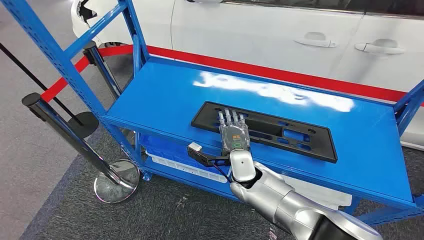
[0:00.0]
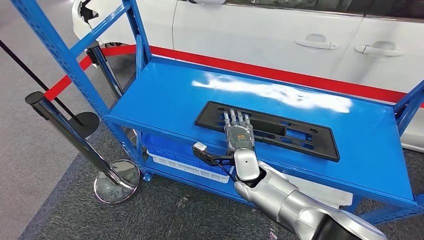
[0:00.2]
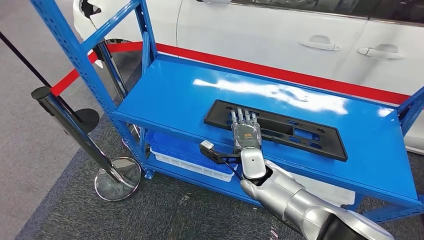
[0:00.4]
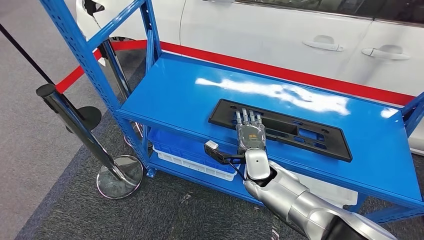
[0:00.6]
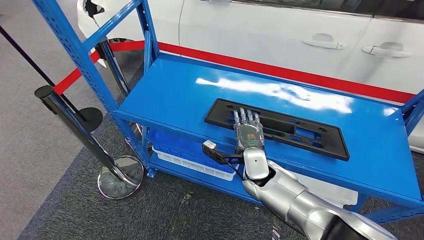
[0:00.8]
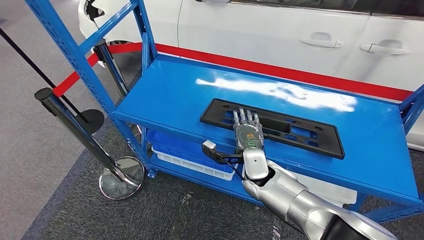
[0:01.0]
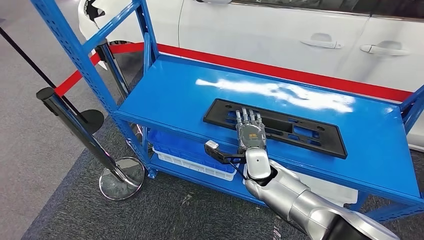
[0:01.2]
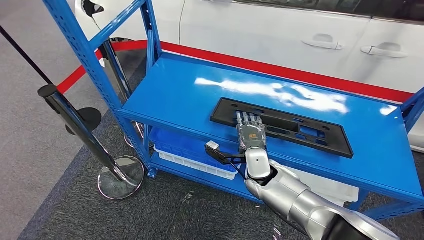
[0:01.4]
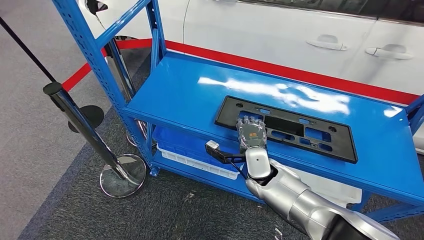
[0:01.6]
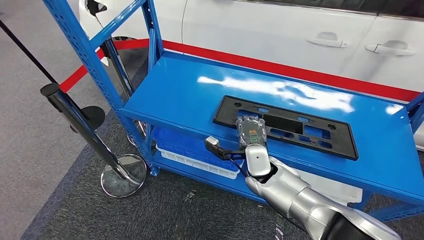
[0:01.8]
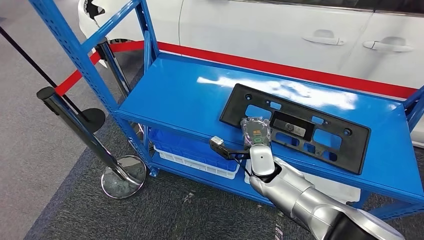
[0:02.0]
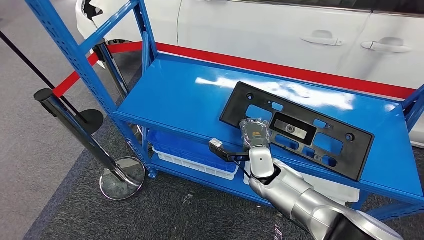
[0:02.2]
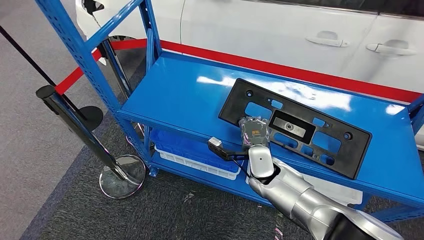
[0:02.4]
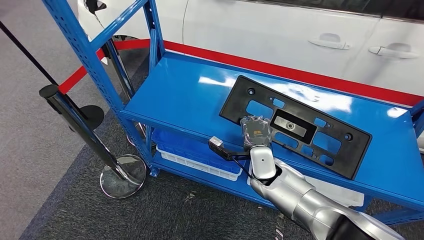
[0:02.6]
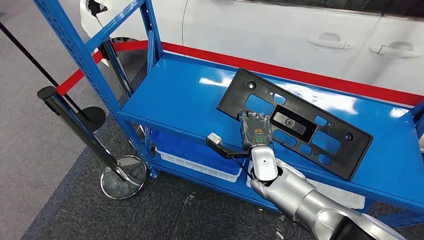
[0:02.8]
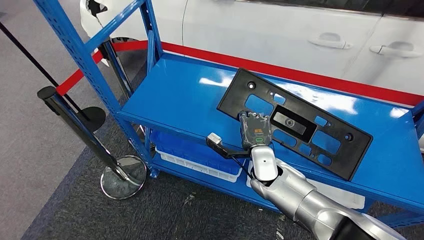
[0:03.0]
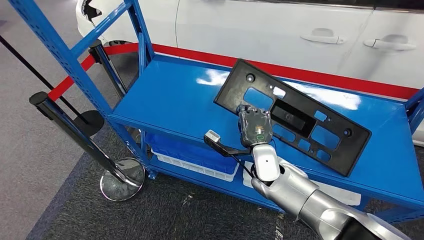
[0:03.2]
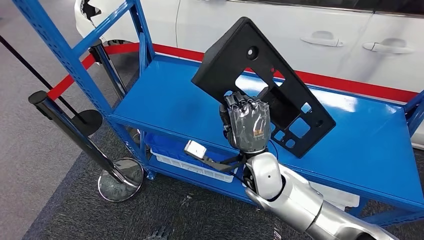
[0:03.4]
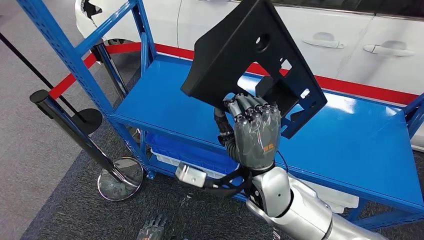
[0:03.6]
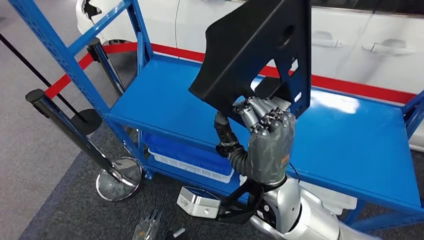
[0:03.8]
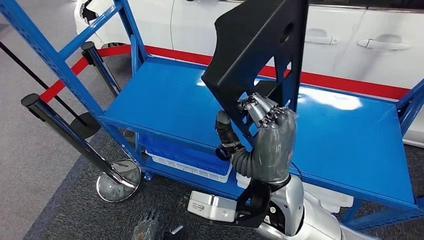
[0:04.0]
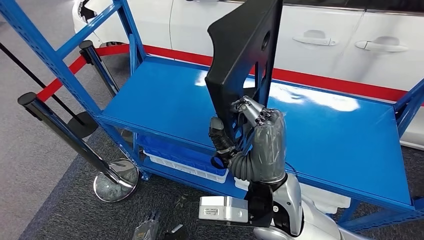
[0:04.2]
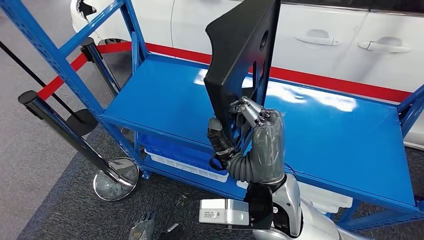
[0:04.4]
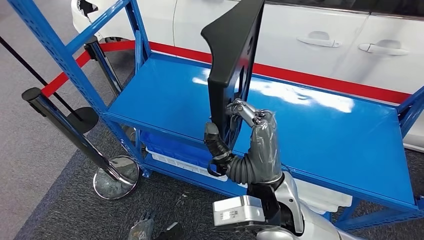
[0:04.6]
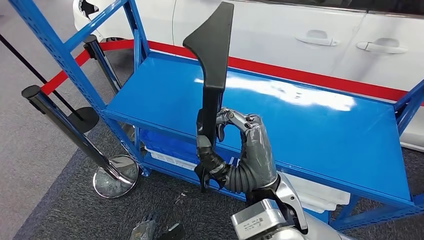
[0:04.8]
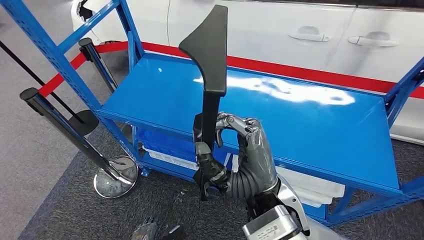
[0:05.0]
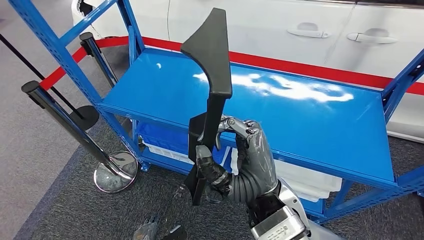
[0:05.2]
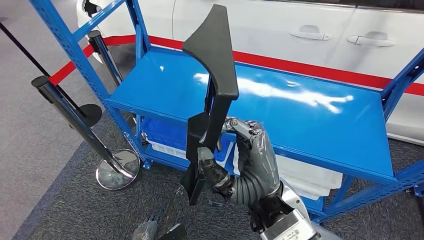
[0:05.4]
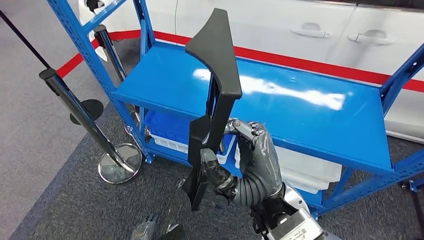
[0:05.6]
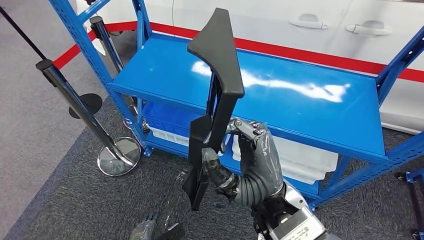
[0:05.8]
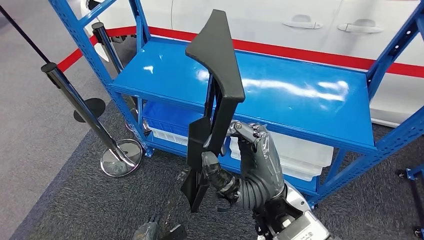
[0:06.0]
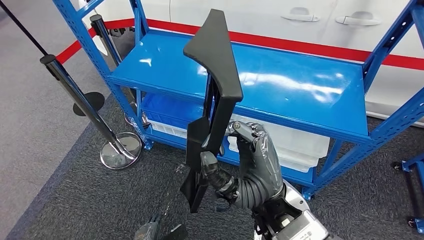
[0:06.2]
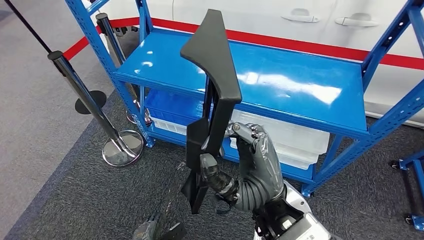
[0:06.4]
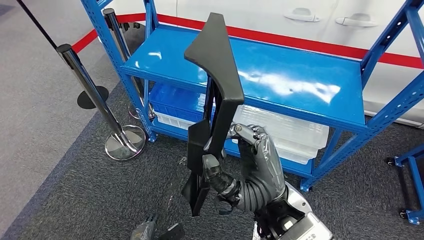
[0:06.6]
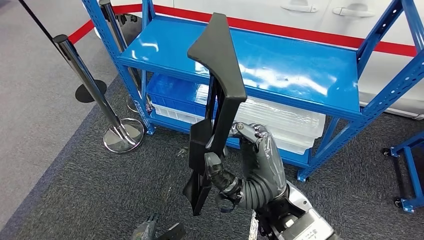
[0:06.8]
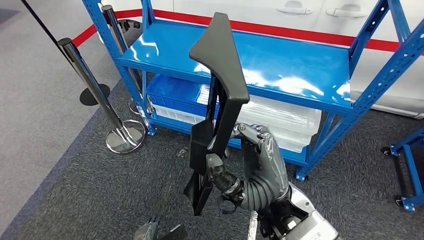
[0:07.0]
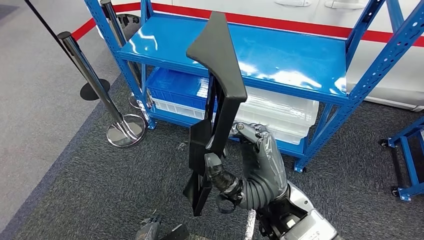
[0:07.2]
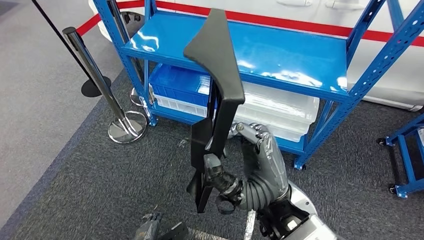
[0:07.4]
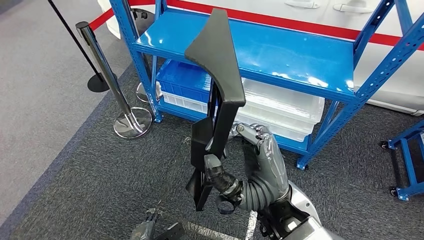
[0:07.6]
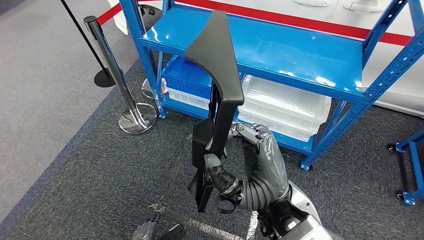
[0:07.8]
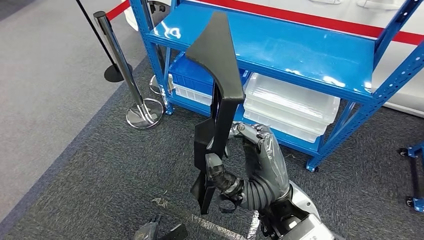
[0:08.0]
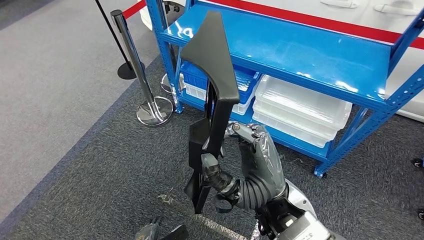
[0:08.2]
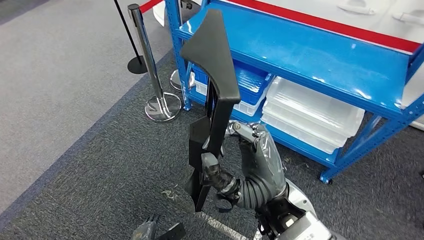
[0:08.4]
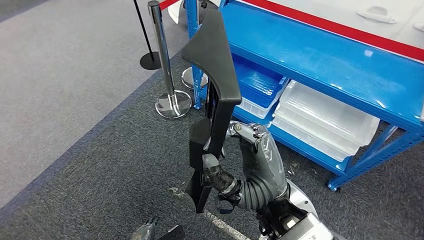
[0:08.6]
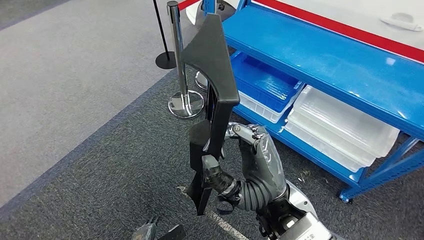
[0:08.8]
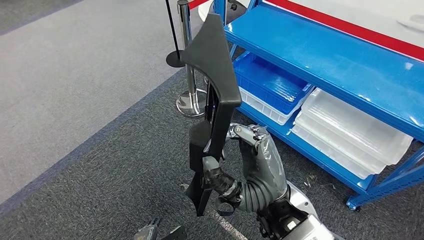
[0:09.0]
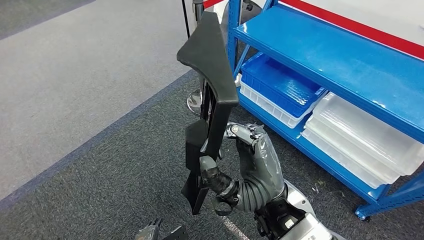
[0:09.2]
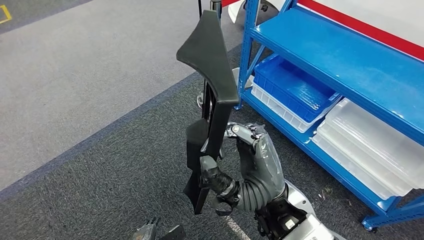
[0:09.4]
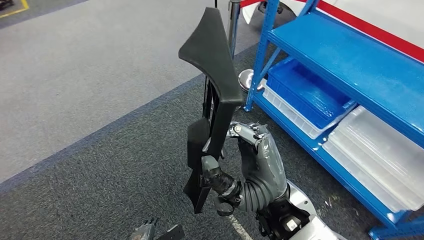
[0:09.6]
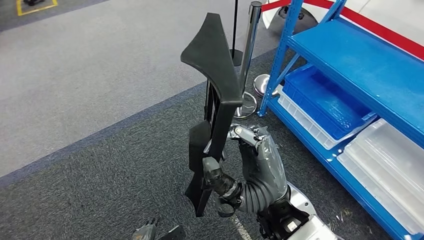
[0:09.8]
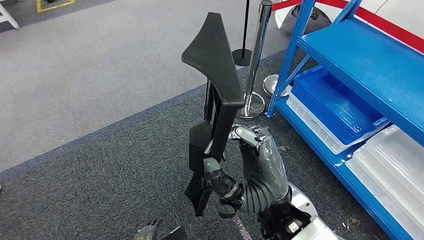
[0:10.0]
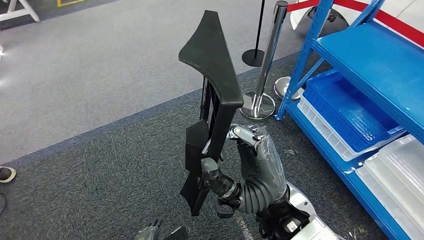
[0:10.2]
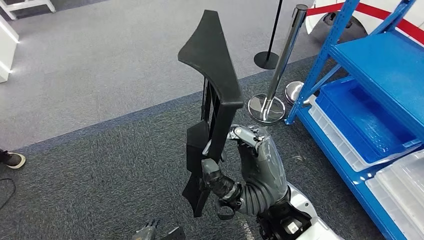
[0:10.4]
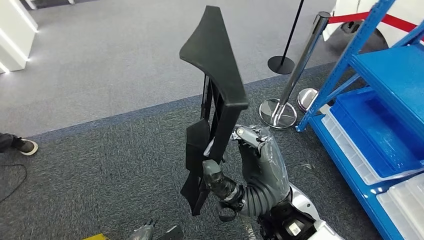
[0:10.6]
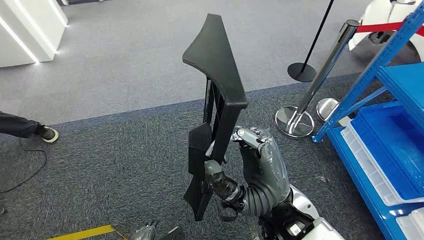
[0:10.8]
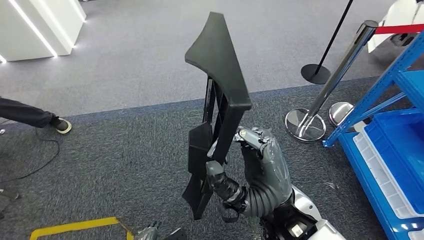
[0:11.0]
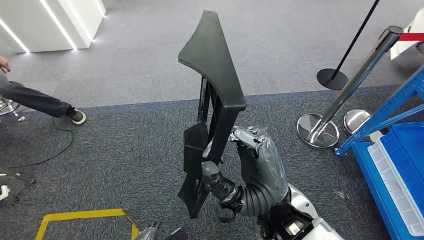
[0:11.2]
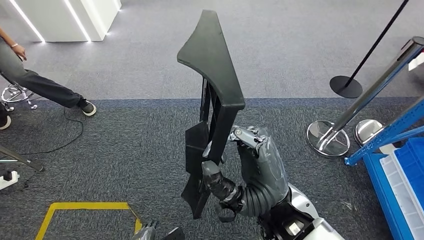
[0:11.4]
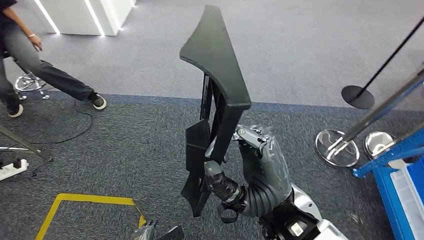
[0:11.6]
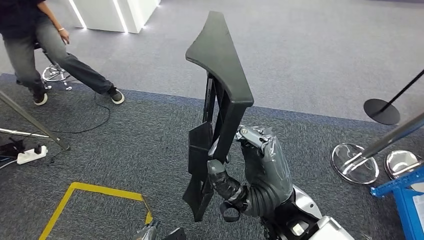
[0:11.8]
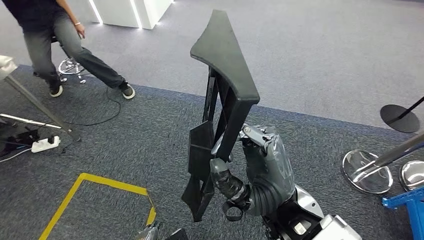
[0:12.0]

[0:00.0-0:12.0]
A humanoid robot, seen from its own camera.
Step, 0:00.0 to 0:06.8: Pick up the large material from the shelf.

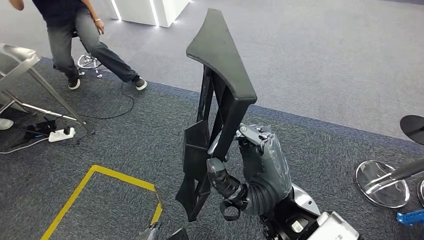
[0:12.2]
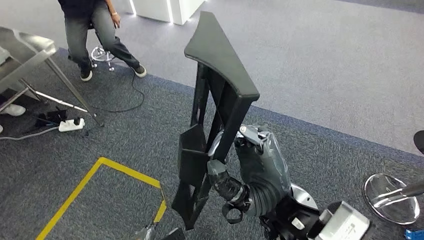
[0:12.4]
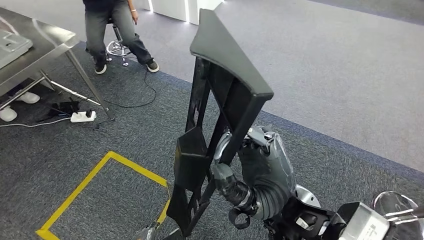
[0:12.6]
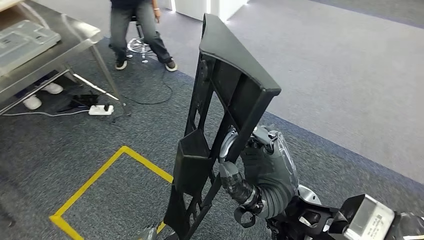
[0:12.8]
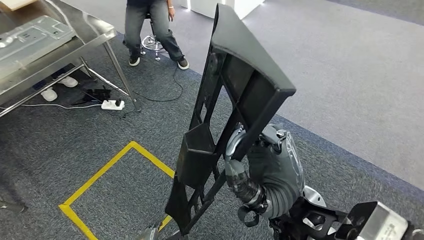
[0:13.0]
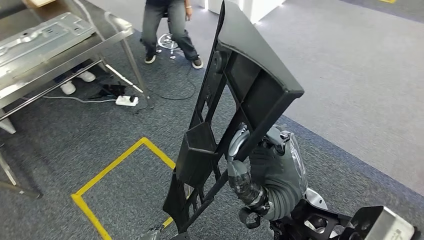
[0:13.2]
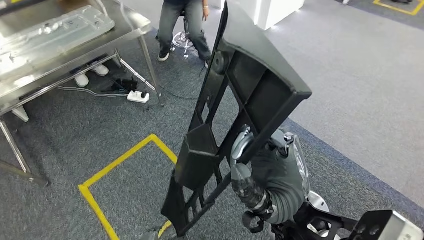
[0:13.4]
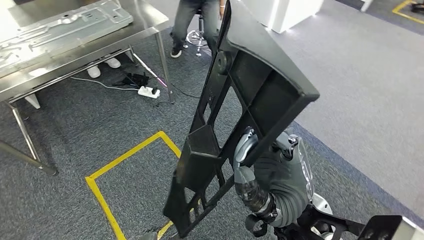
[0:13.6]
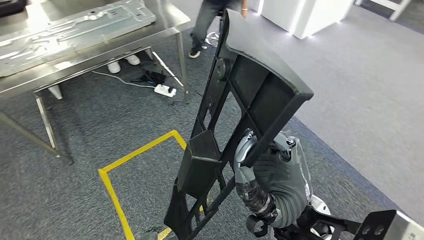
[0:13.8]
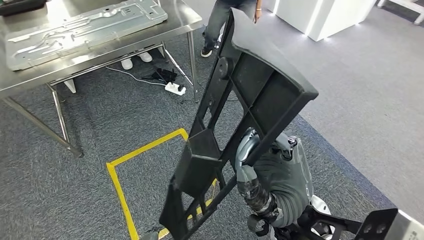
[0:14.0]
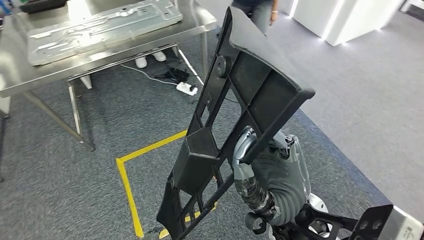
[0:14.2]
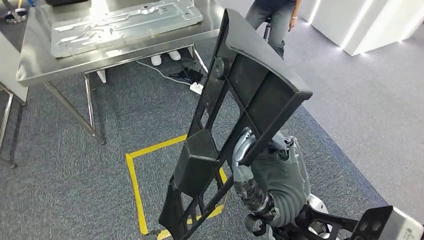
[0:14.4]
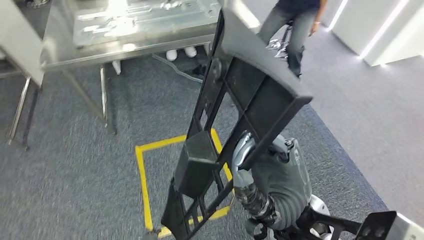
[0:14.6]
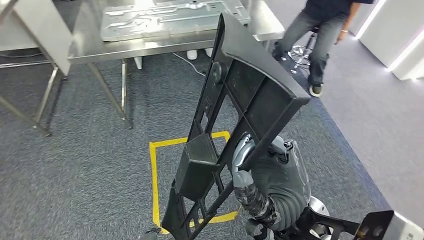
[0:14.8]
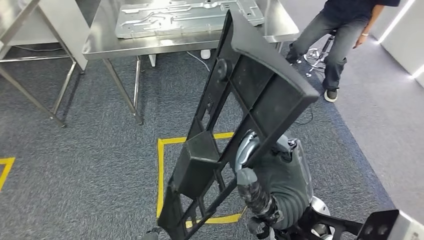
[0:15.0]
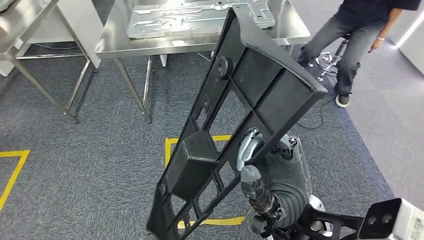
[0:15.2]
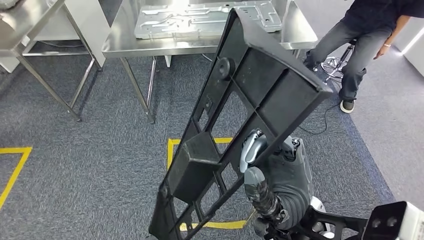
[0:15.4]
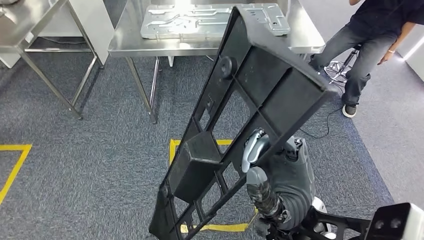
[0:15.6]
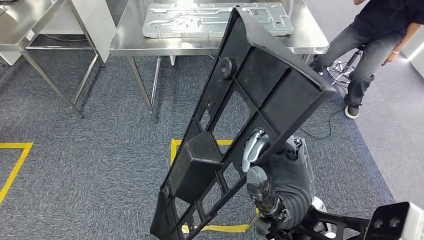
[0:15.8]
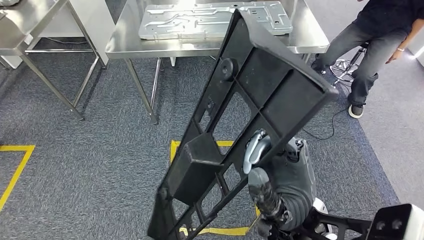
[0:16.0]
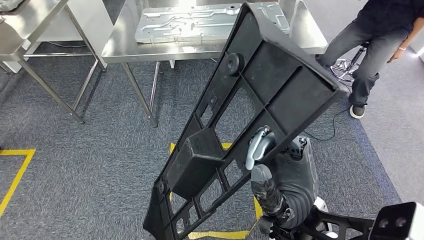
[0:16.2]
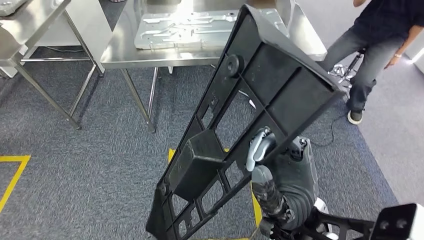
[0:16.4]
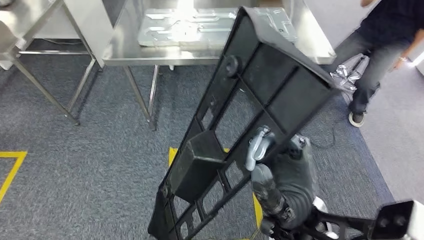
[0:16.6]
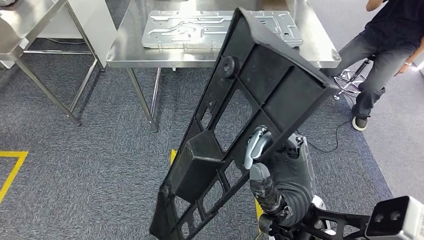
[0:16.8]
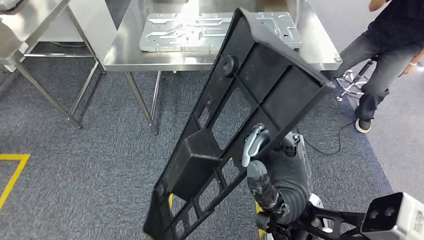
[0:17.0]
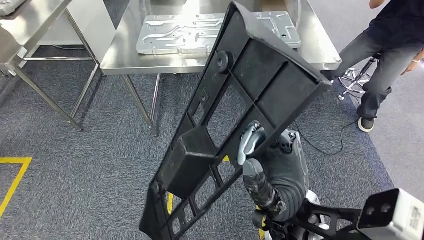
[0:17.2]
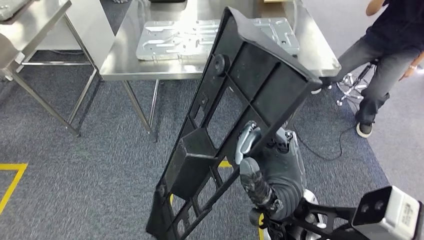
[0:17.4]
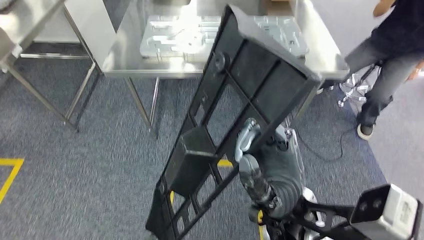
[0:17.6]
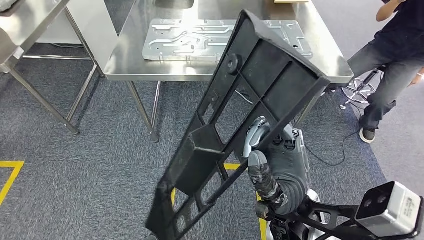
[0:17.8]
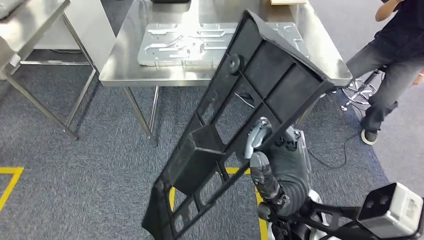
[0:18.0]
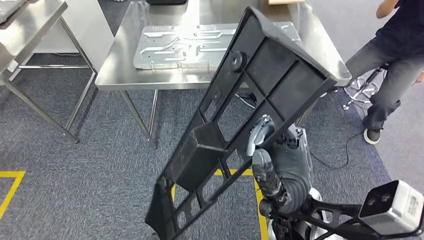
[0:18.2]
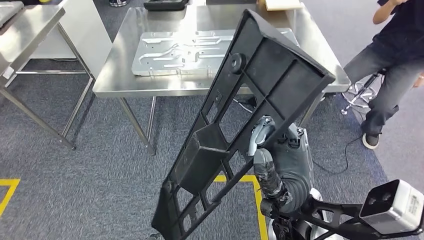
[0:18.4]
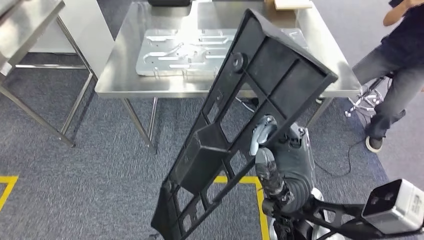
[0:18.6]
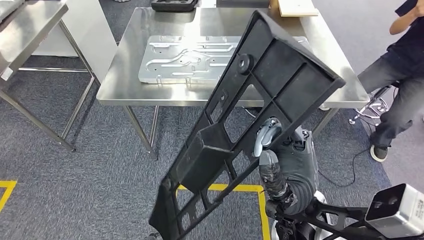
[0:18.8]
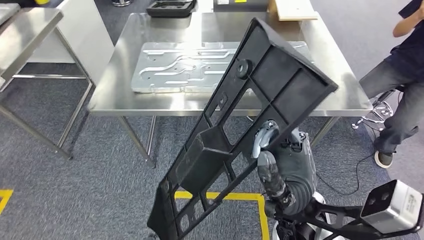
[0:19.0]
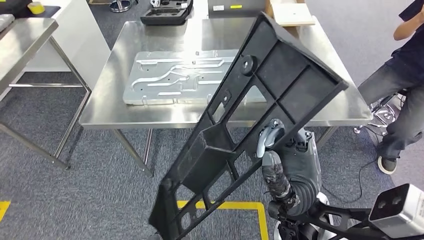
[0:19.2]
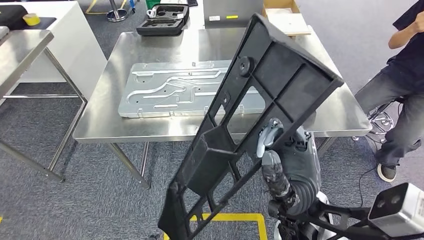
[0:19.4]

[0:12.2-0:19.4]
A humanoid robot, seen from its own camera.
Step, 0:12.2 to 0:18.4: Move the large material to the workbench.
